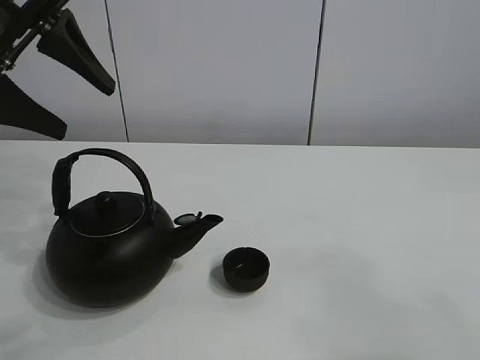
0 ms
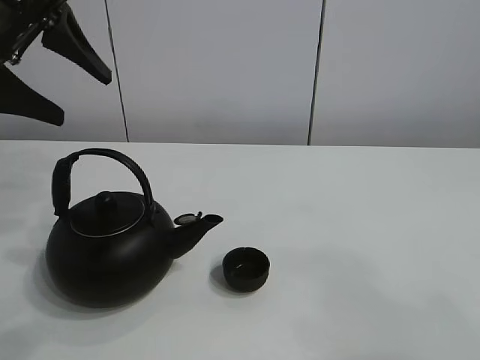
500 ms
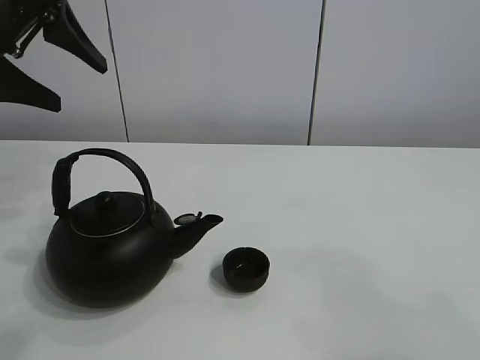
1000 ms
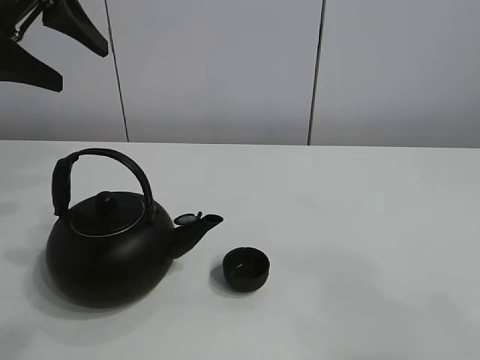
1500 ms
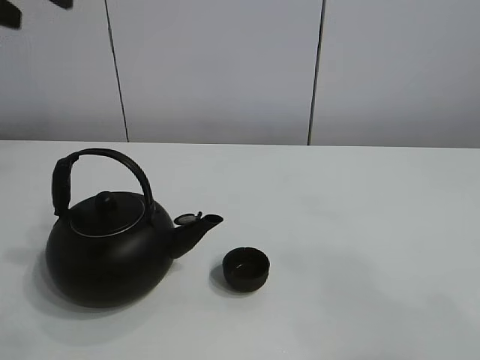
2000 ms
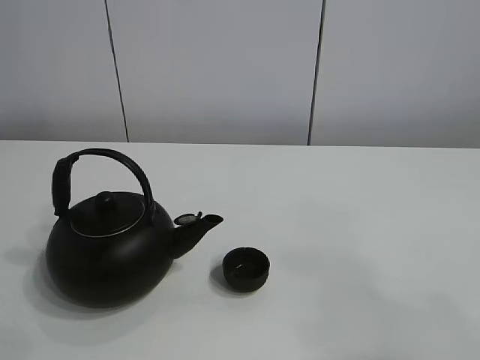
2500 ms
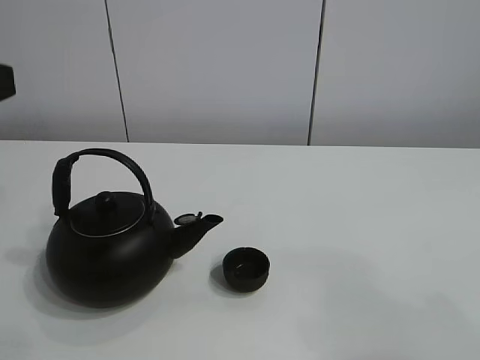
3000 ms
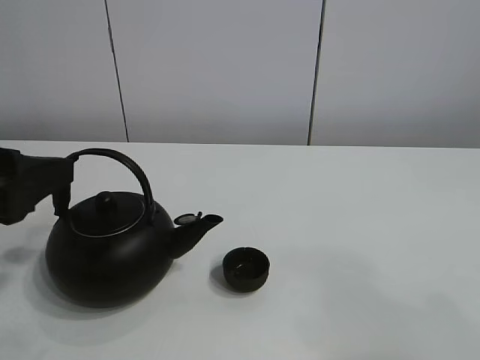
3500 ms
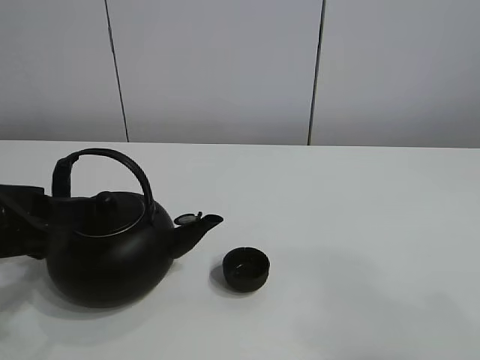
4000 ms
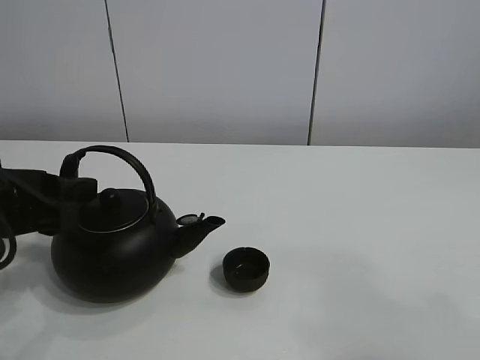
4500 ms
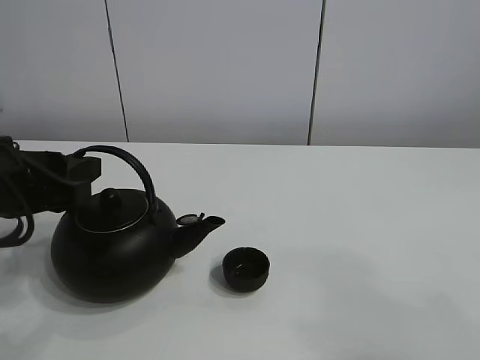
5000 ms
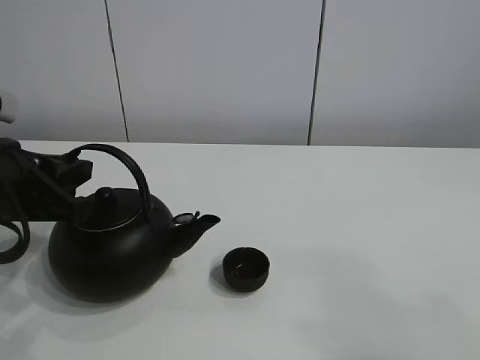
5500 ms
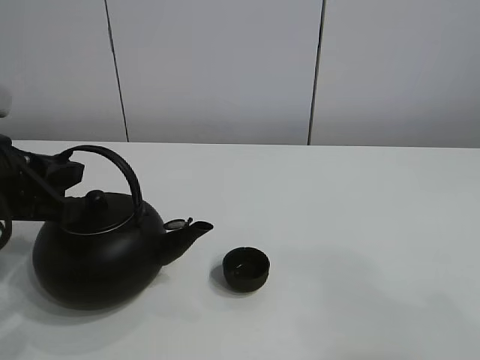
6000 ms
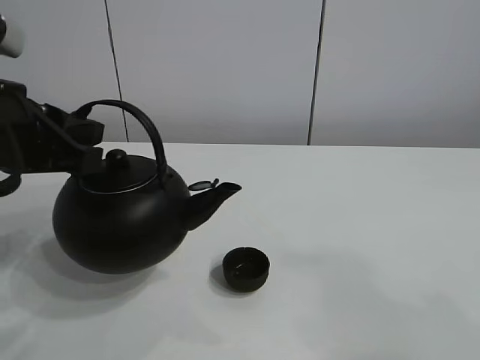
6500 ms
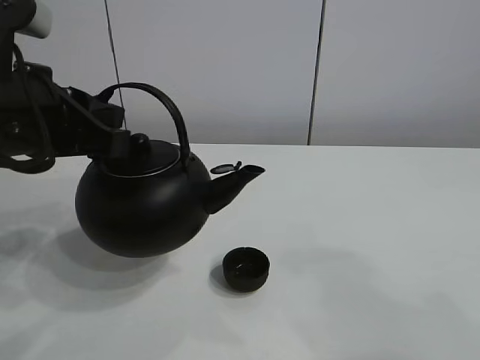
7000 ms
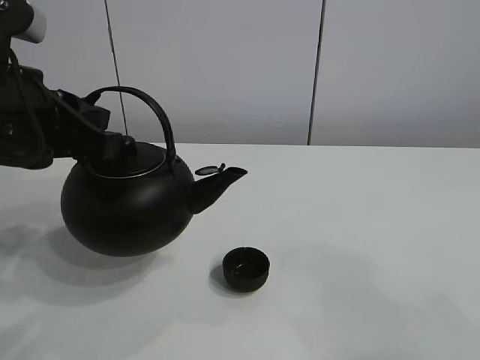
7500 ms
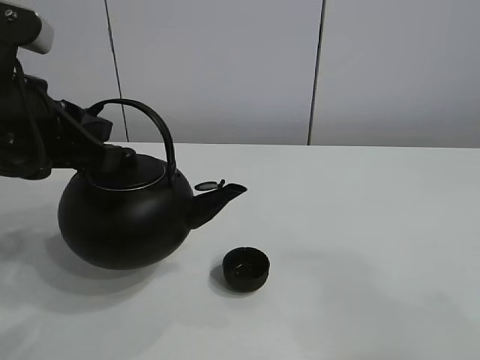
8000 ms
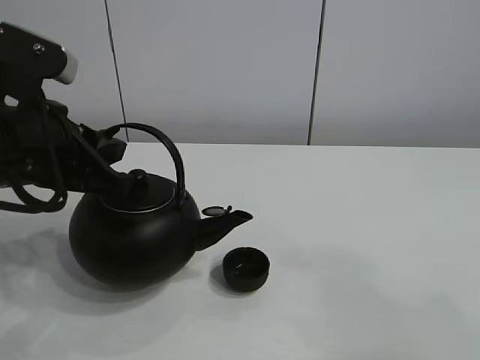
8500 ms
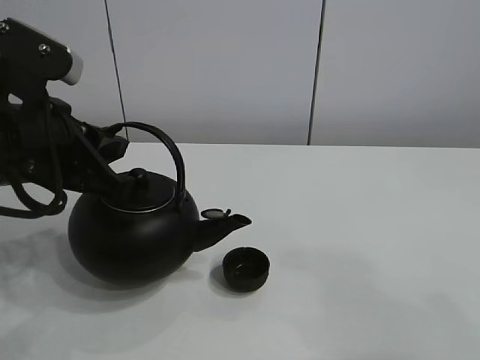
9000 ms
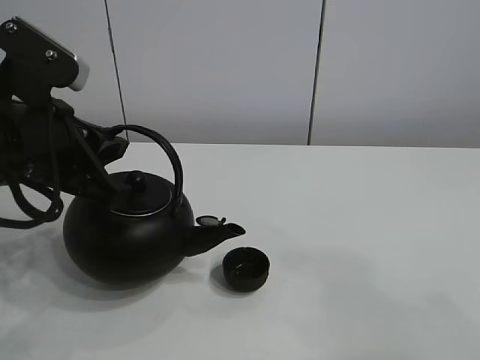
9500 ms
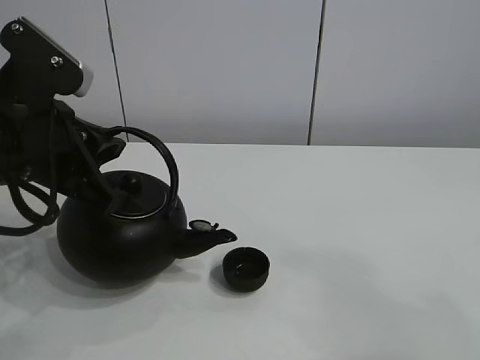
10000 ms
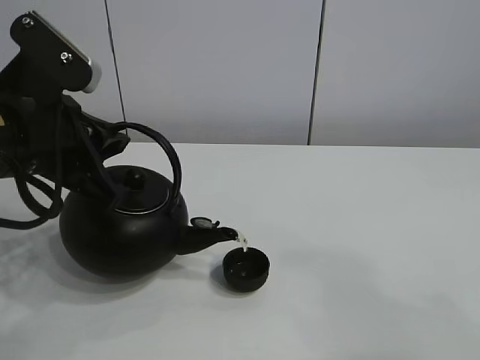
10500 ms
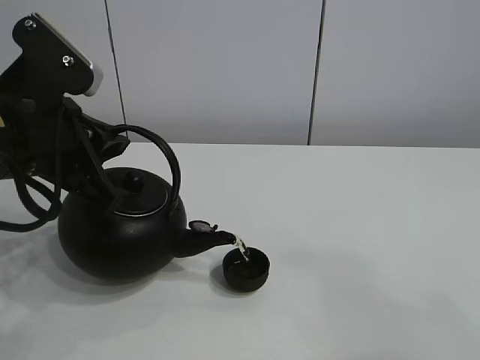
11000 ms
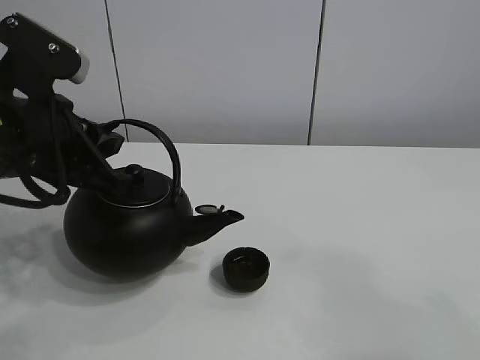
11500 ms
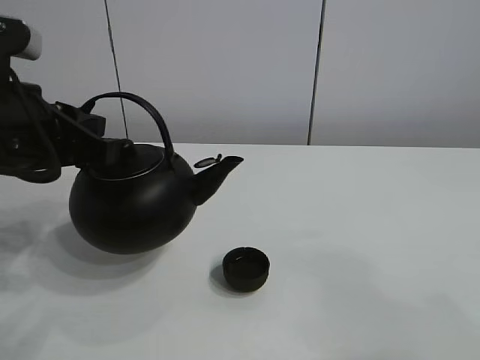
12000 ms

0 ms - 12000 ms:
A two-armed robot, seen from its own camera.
Task of the whole recording: pour tea into the teacup.
Step, 0 ms - 6000 ms: Pick up the teapot with the left gripper.
Step, 6500 ms - 11500 ms: Pour tea into the teacup with the left gripper.
0 ms - 2000 ms: The left gripper goes approximately 5 cm upward.
2000 ms - 4000 ms: The left gripper goes roughly 25 cm downward and backward.
4000 ms - 6000 ms: The left gripper closes its fingers.
6000 ms - 8000 ms: The left gripper shifts approximately 5 cm upward.
8000 ms - 10000 ms: The grippers make only small movements.

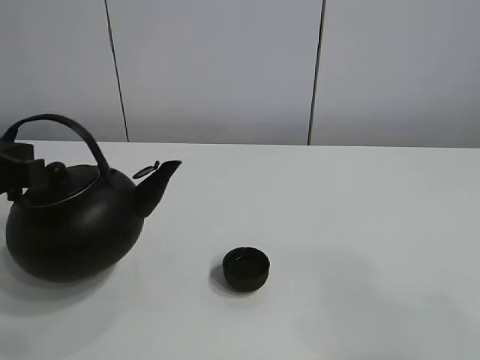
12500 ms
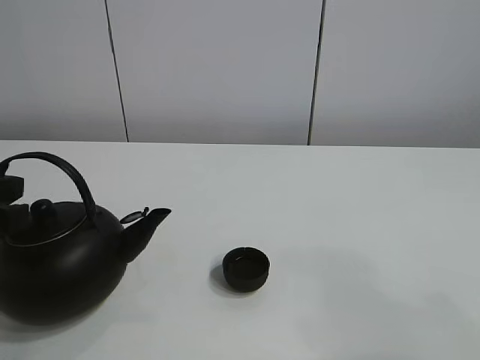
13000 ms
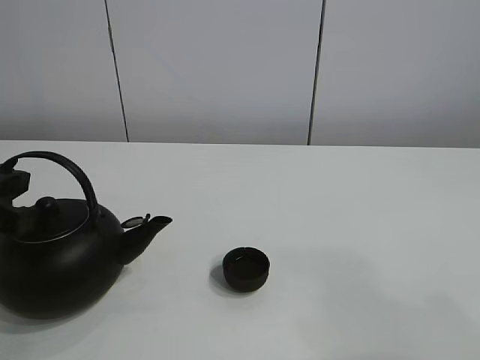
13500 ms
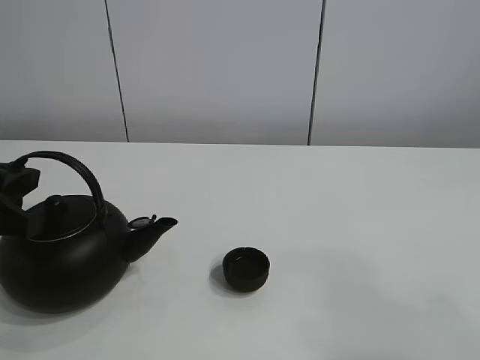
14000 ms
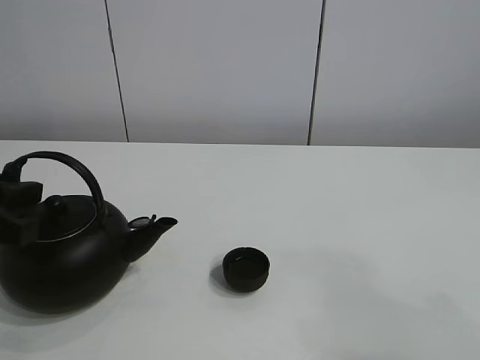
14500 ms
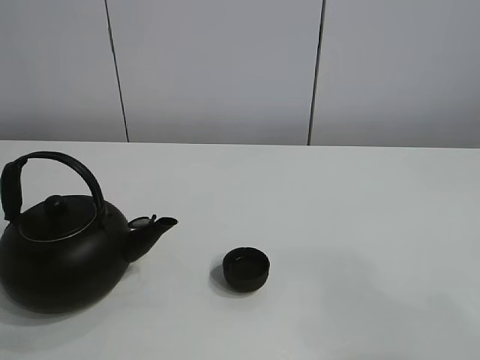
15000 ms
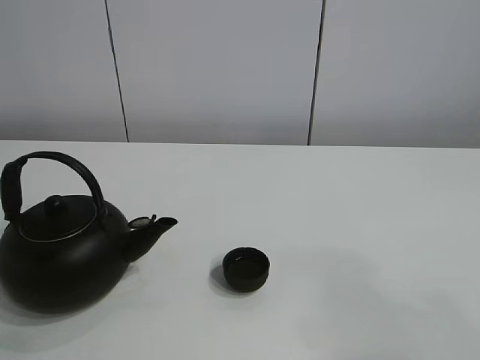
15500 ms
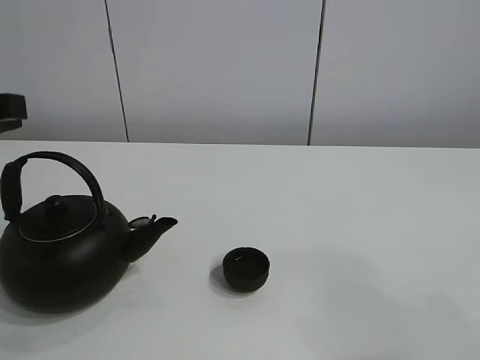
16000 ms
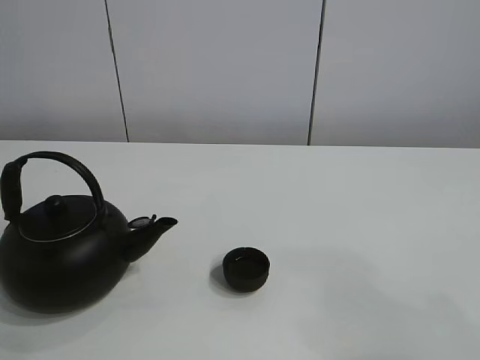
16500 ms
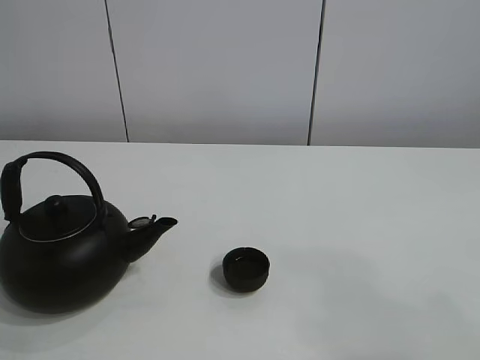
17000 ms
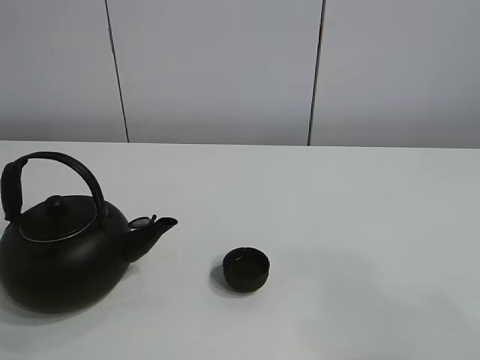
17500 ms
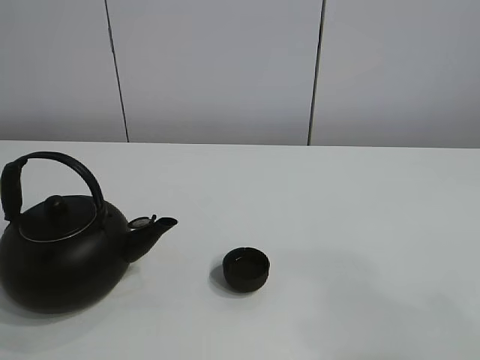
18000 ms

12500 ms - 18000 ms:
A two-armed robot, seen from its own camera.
Task of the whole recording: pour tea into the teacup.
12500 ms - 14500 ms: The left gripper opens.
14500 ms - 16000 ms: The left gripper shifts about 5 cm upward.
